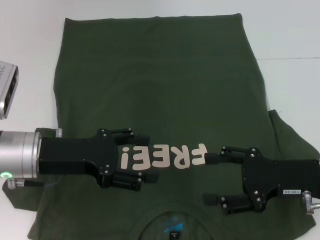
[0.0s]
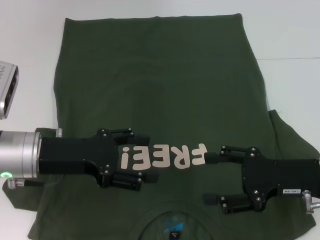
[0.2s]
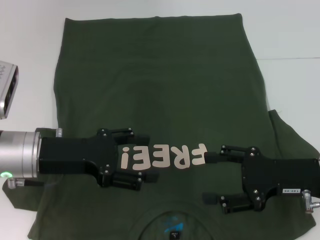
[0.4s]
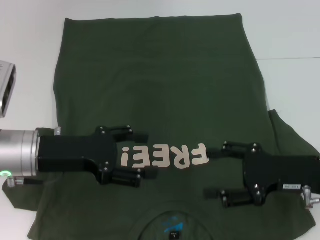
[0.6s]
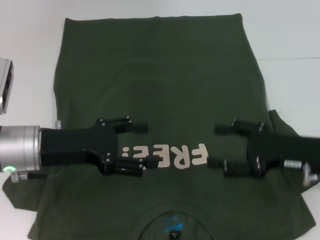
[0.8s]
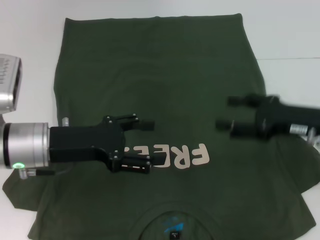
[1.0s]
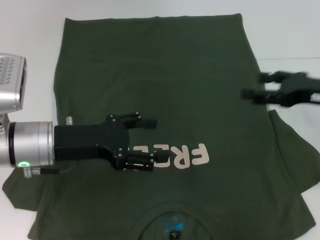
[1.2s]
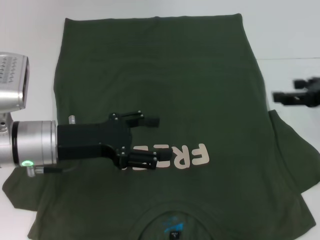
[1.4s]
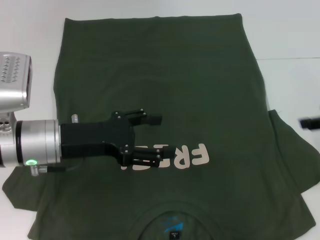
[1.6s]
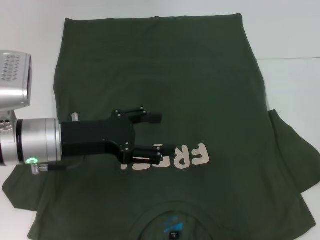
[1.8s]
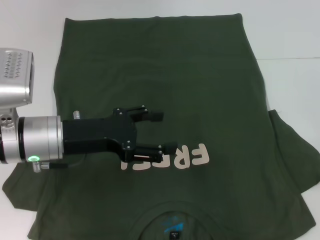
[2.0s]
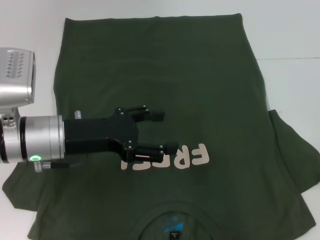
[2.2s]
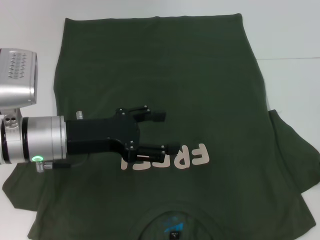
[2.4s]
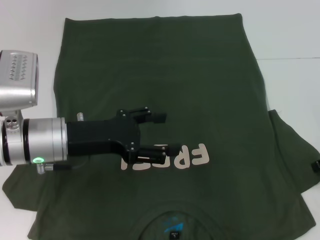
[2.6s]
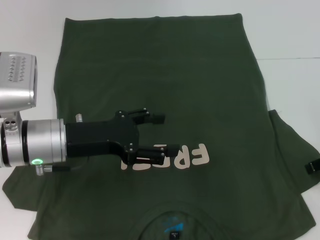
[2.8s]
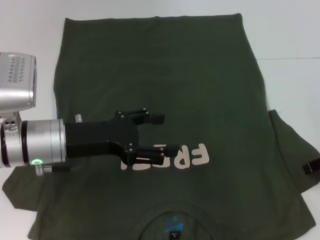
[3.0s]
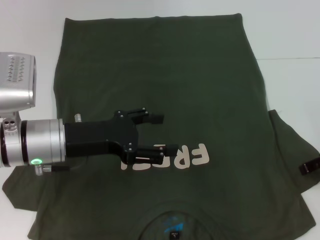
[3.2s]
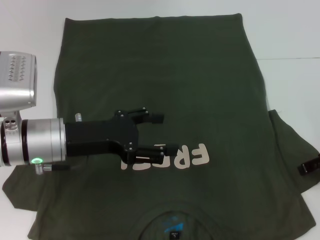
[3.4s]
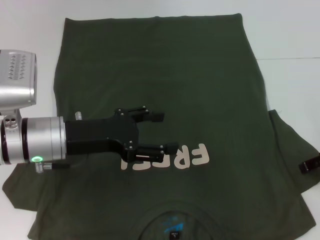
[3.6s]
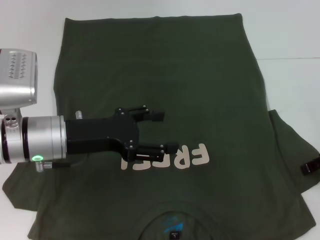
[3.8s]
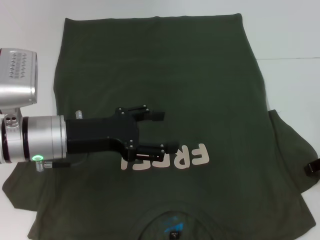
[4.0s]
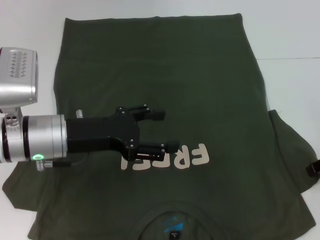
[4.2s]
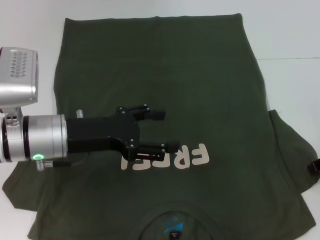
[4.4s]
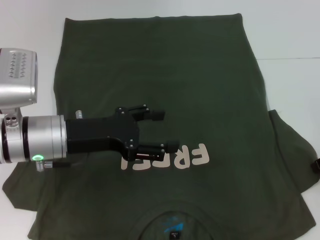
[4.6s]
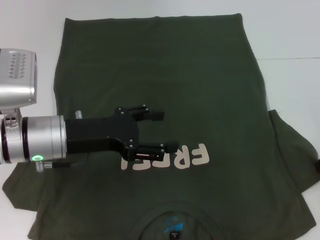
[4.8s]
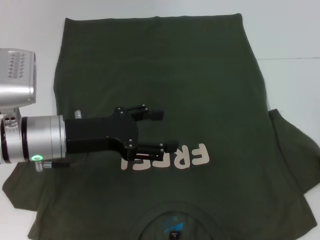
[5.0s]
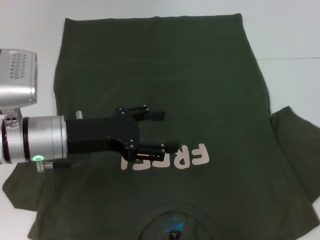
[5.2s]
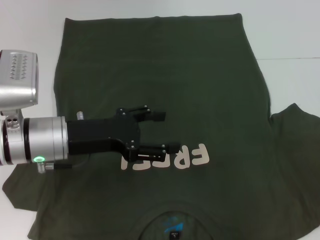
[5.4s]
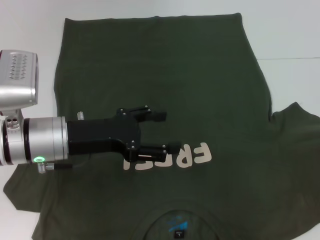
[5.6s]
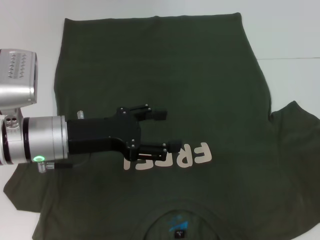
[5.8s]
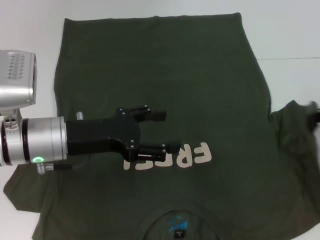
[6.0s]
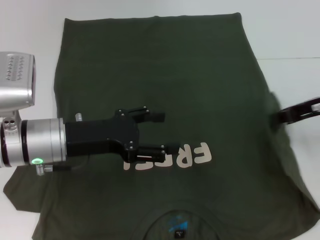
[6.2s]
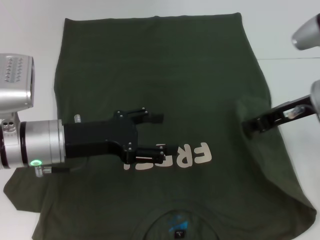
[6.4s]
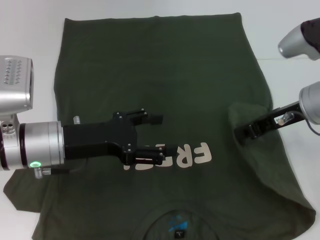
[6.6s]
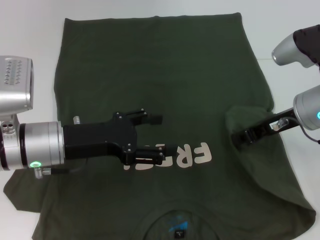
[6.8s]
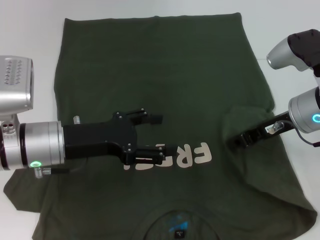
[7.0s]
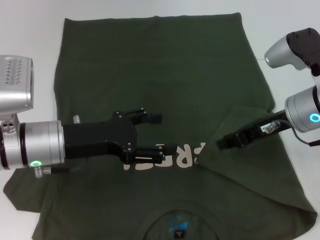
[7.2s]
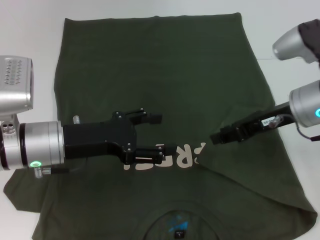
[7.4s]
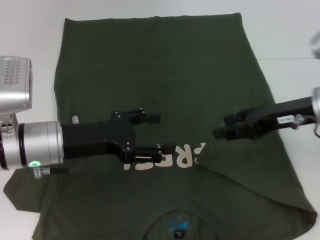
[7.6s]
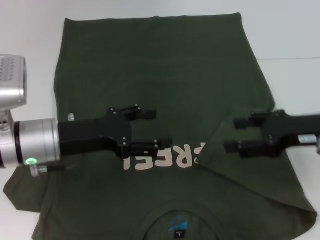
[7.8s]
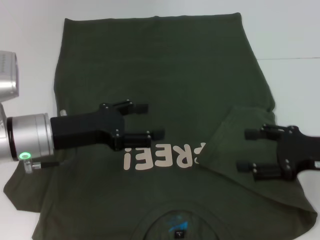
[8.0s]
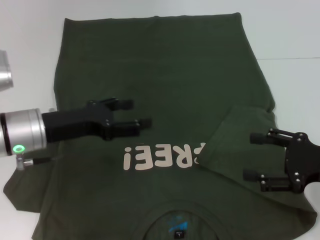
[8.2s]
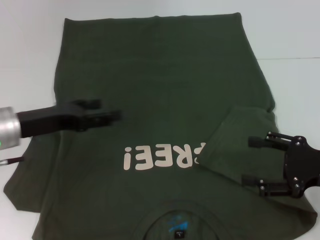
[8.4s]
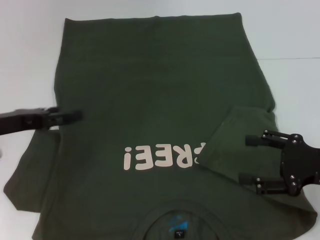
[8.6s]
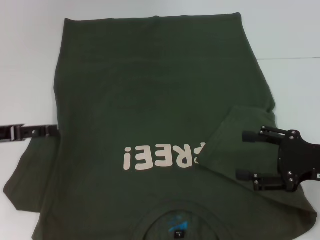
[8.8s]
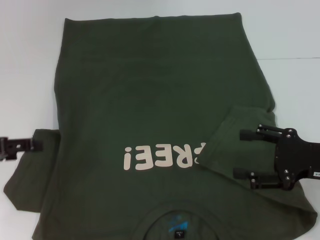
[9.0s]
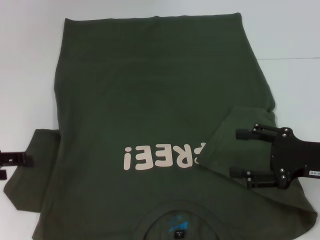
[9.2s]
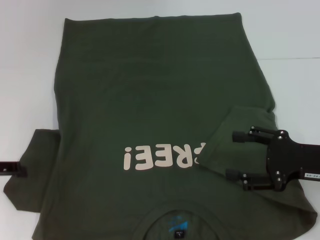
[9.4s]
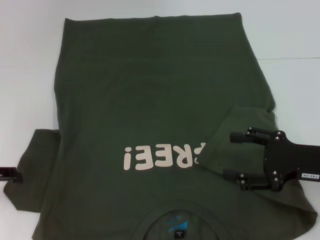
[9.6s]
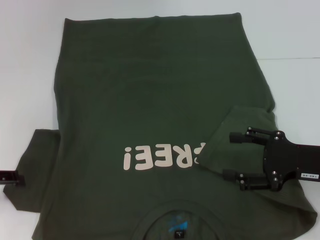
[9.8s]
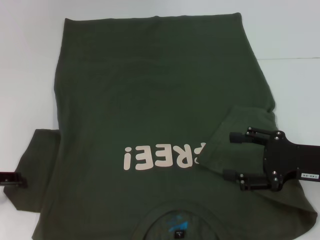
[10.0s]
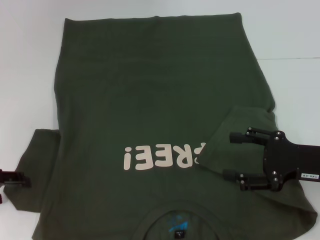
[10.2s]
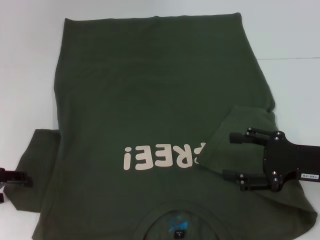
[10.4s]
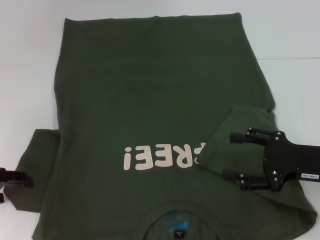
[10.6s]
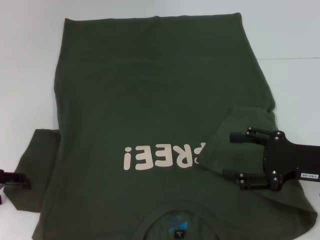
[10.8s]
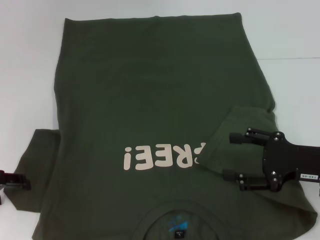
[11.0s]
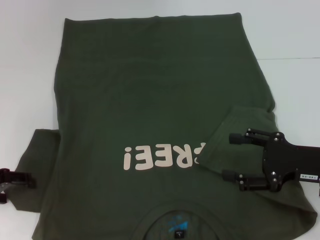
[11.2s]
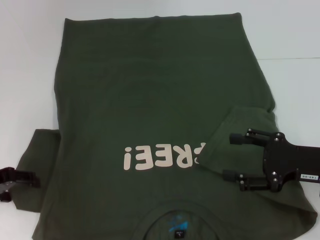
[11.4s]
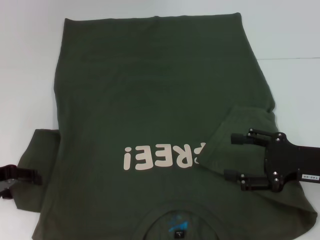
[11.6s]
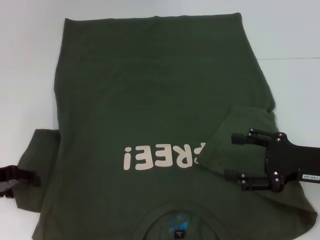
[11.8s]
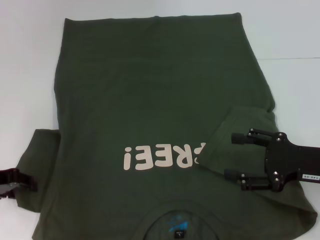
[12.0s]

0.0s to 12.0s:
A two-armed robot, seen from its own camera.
Step, 0.0s to 7.2s: Fold the bottom right sleeve with your right hand.
0.0s to 1.6s: The right gripper moves to the right, upward and forward, approximately 15 cm.
3.0s to 4.4s: The right gripper closes up.
4.4s to 6.0s: The right gripper closes.
6.0s to 7.6s: The right gripper travels to the left by some 10 cm, and opens its fingers.
7.6s to 9.0s: The left gripper shifts about 15 cm to the left, while the right gripper heads backward and downward, covering about 10 cm, and opens.
10.4s to 12.0s: The grippers move only a little.

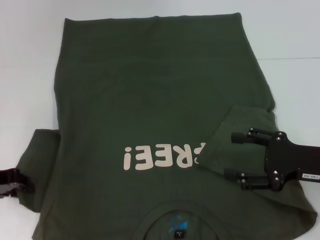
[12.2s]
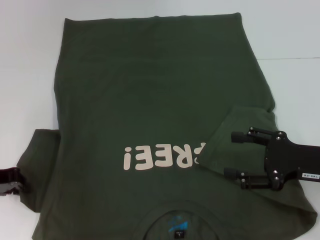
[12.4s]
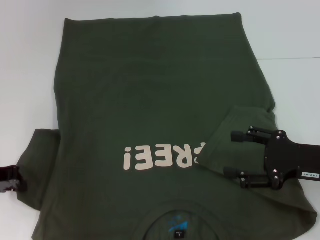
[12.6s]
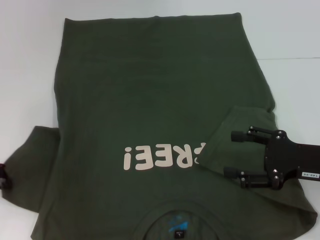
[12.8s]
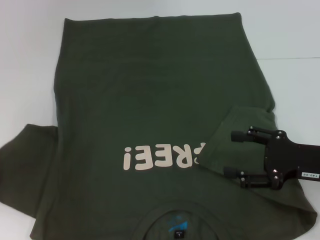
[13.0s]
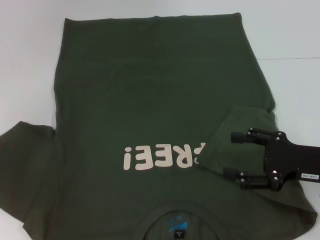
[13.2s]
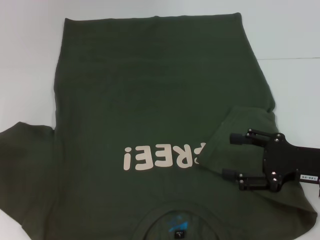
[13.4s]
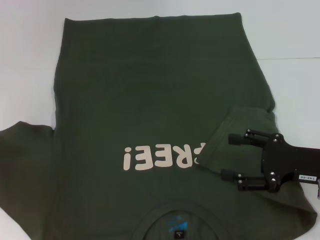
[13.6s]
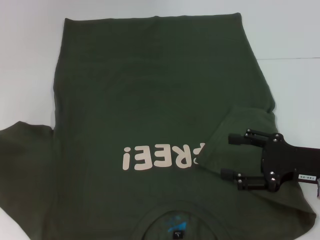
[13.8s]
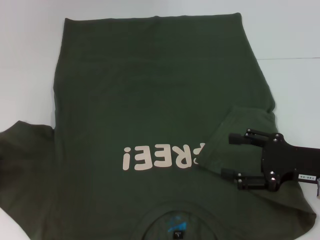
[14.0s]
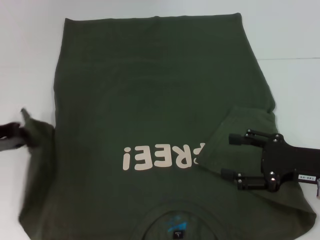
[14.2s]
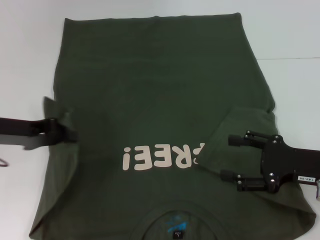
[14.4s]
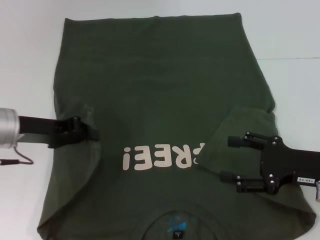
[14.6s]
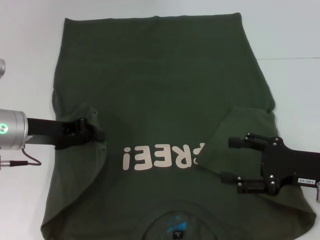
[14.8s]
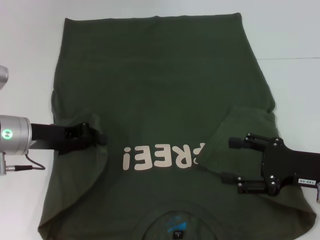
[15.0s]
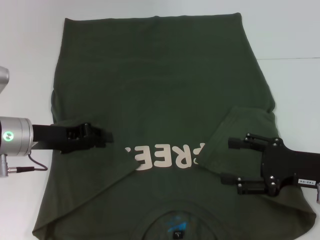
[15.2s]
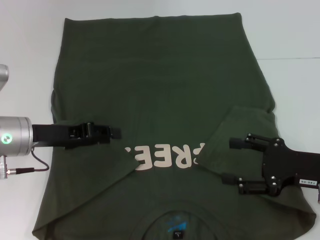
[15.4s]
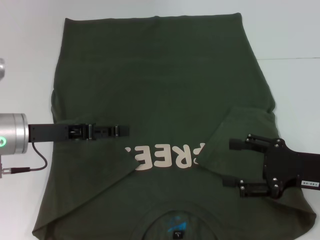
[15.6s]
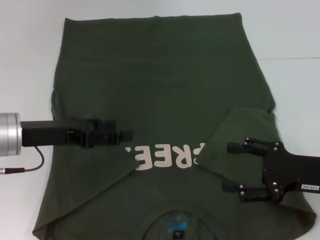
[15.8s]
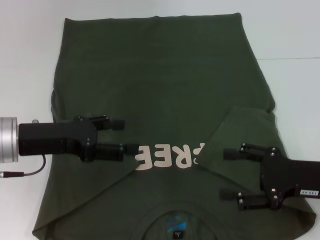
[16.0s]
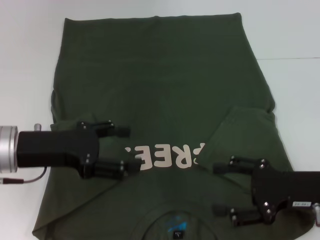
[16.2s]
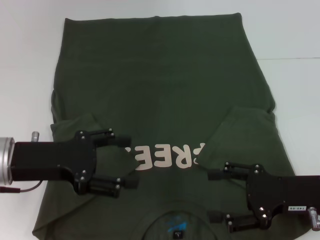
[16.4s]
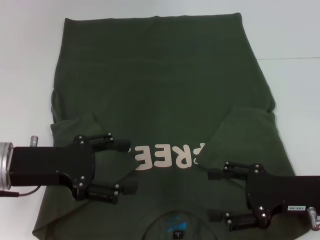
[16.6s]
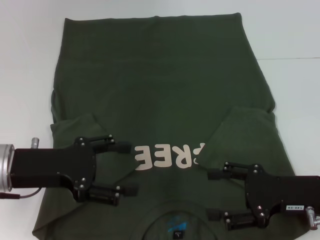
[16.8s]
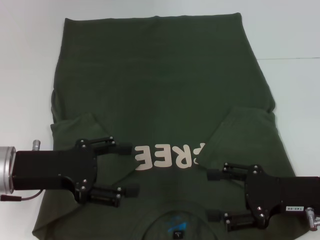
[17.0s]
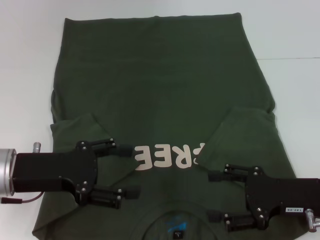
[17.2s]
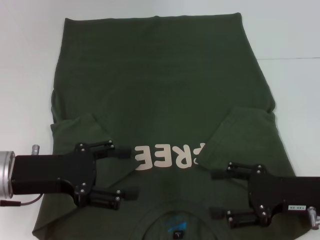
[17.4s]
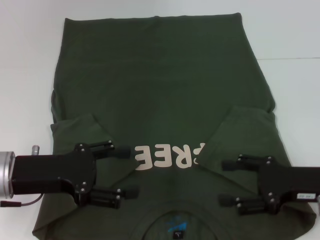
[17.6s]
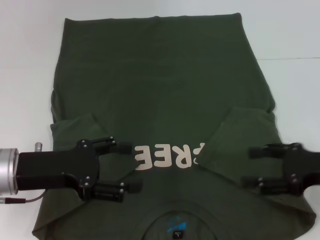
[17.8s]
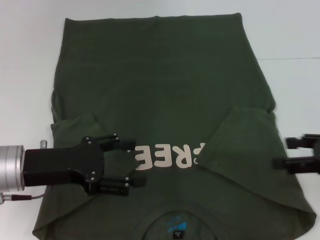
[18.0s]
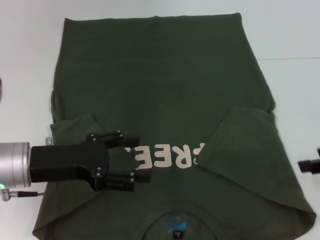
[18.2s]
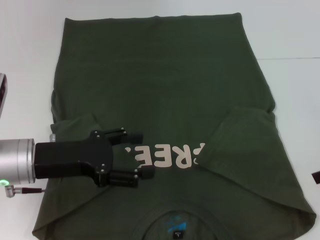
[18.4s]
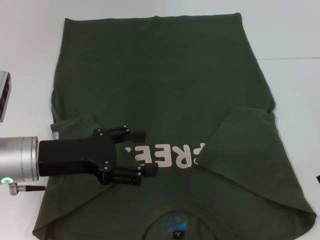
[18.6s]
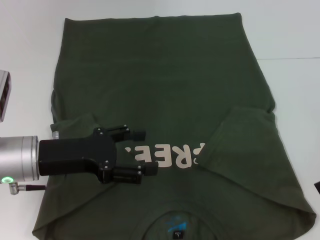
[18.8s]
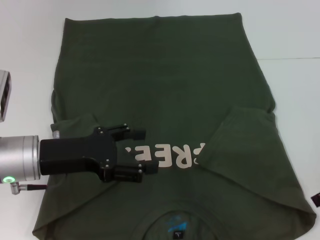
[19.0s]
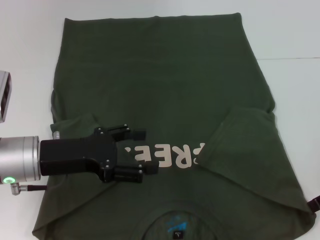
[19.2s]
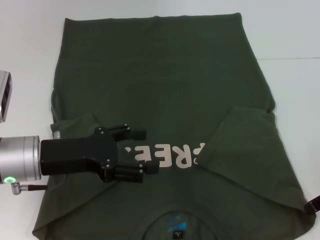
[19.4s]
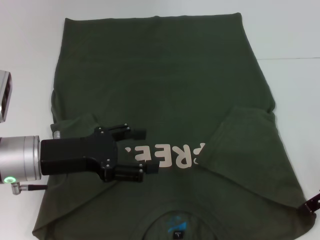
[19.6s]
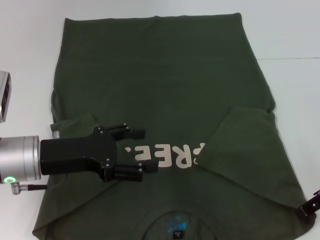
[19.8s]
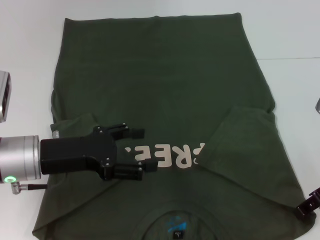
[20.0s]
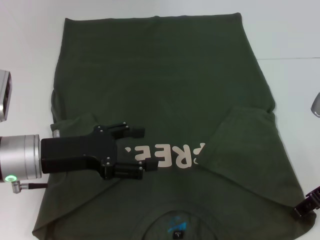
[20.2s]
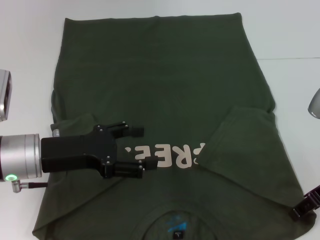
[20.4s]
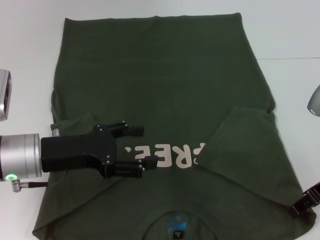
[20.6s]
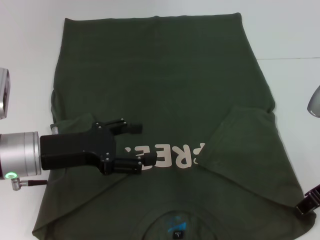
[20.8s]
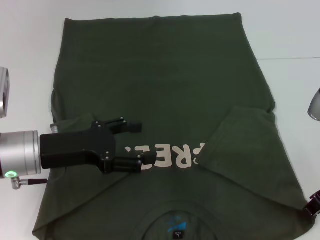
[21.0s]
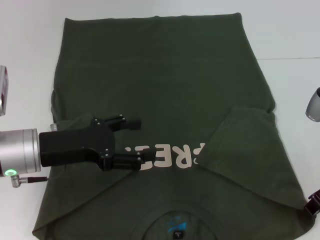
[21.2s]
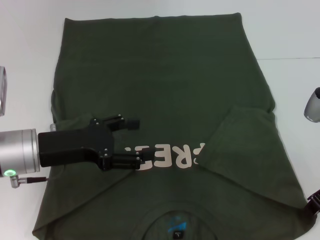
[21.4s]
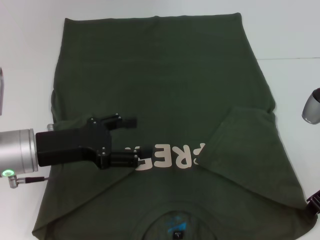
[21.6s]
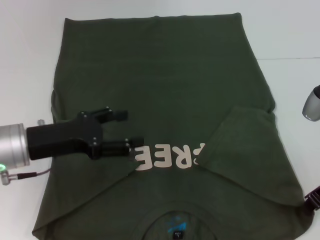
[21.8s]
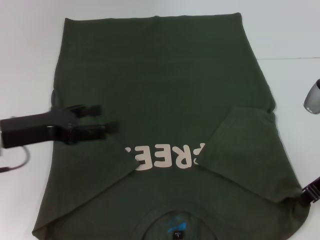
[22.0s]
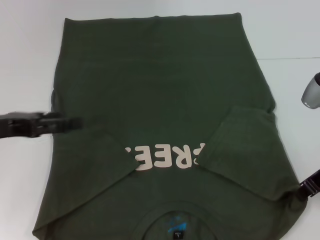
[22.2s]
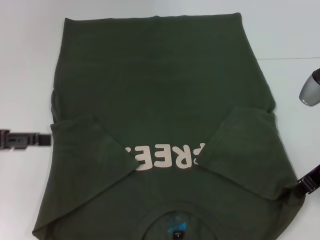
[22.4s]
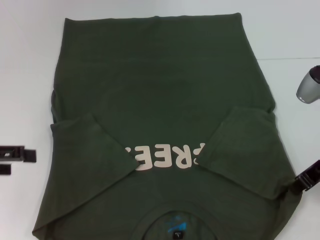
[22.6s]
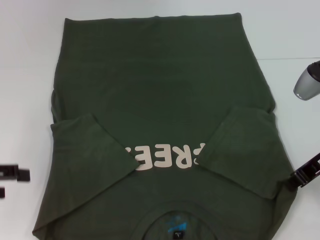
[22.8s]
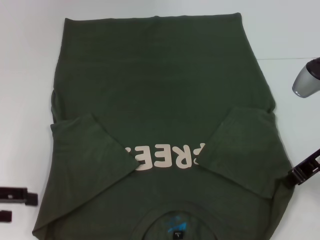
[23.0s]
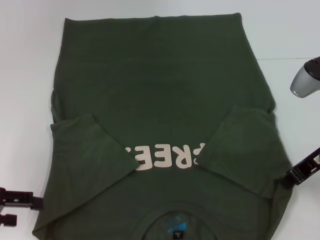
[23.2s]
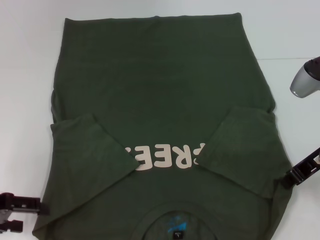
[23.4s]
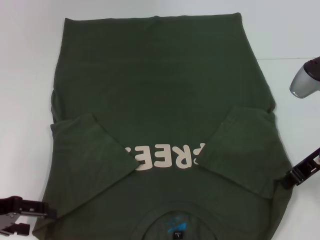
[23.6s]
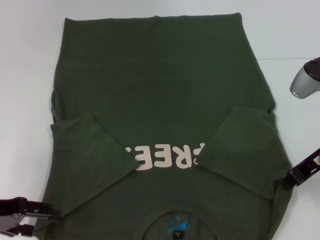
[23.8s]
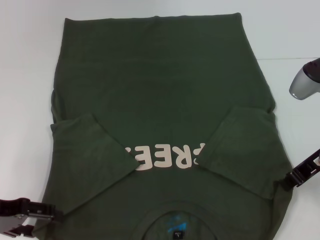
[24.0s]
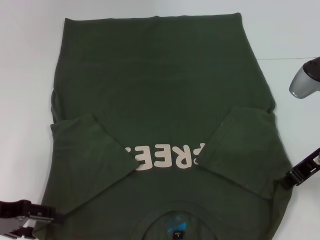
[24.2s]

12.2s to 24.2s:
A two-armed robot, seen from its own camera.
Step, 12.2s to 15.2s: Fold the bottom left sleeve with your left hand.
Step, 15.4s to 22.0s: Grab the bottom right corner with your right hand.
12.2s to 13.8s: The left gripper shifts some 5 cm to the left, and closes up.
13.8s to 15.2s: The left gripper is displaced to the right by roughly 15 cm.
15.2s to 16.6s: The left gripper travels backward by about 5 cm, and opens up.
16.6s to 18.2s: The right gripper goes approximately 10 cm upward and to the right.
18.2s to 19.8s: The right gripper moves some 5 cm.
19.8s to 21.2s: The right gripper closes its fingers.
21.2s to 22.6s: The left gripper moves to the left and upward, about 15 cm.
22.6s to 24.2s: The left gripper heads downward, covering roughly 10 cm.
